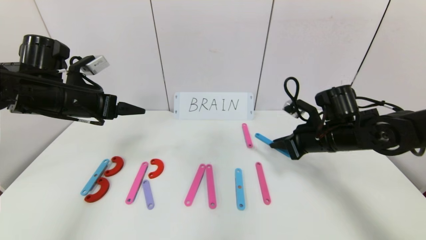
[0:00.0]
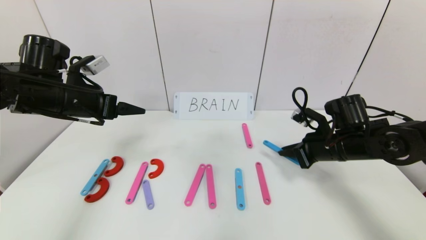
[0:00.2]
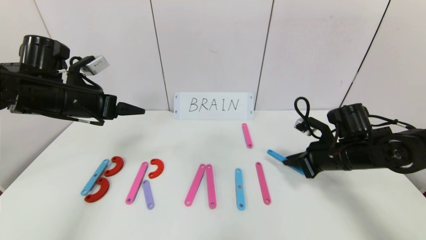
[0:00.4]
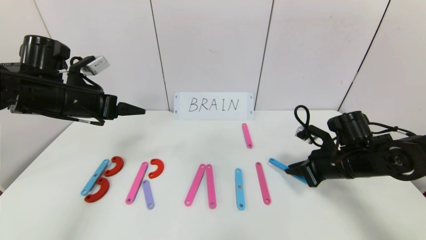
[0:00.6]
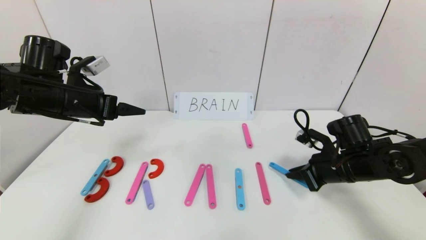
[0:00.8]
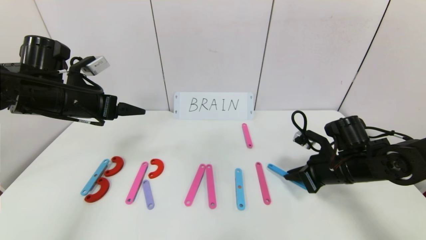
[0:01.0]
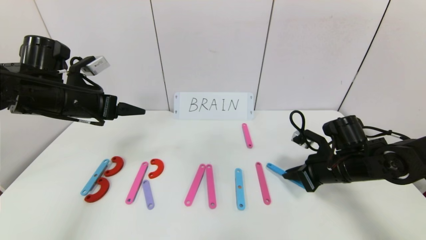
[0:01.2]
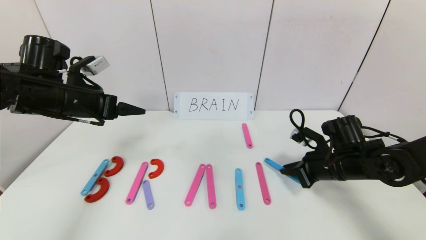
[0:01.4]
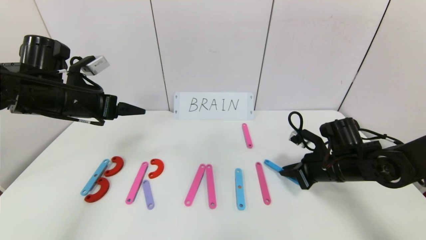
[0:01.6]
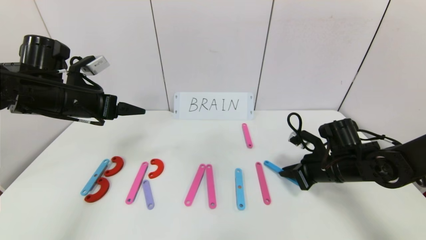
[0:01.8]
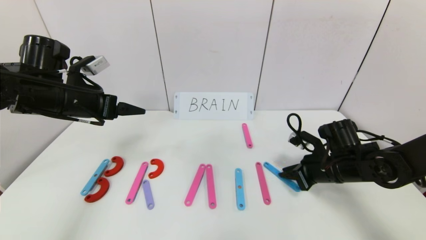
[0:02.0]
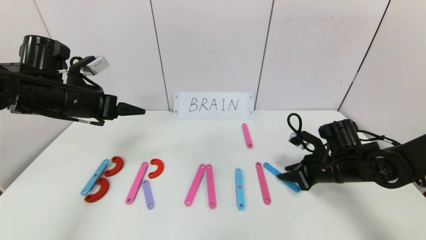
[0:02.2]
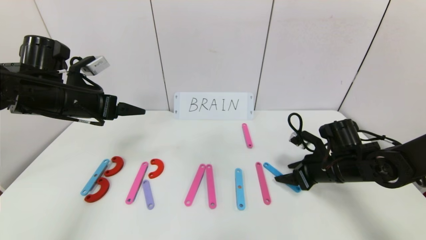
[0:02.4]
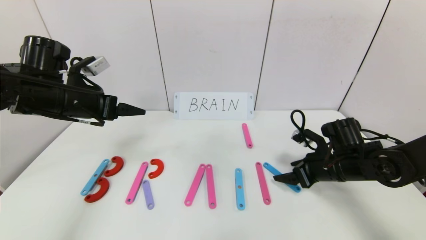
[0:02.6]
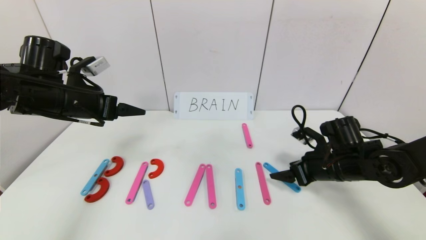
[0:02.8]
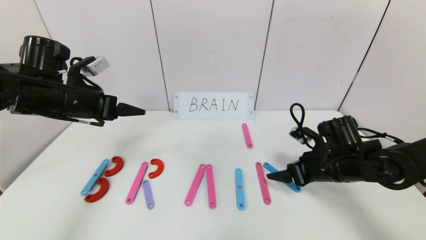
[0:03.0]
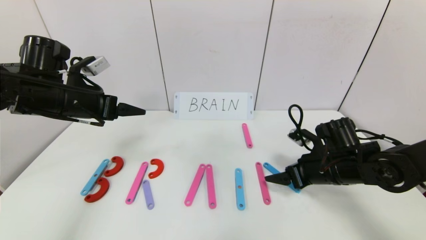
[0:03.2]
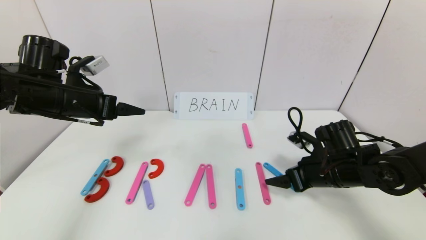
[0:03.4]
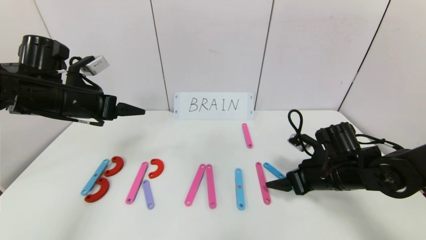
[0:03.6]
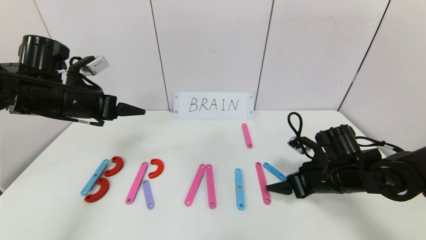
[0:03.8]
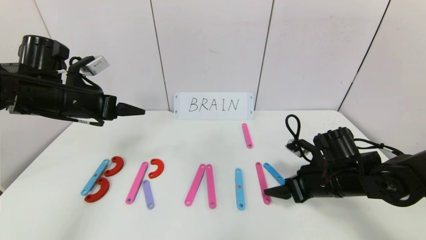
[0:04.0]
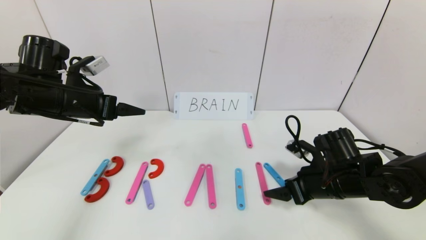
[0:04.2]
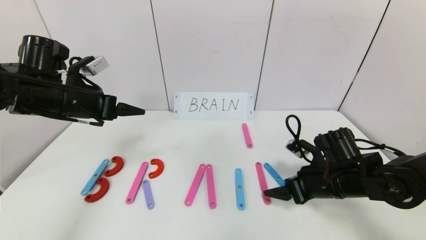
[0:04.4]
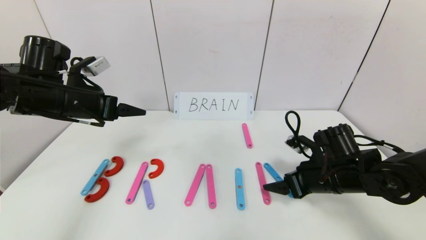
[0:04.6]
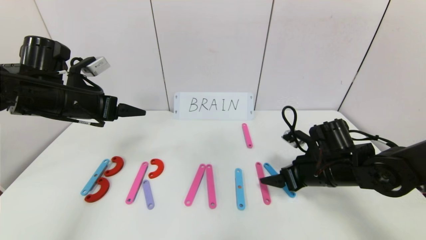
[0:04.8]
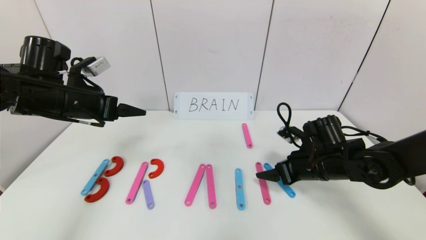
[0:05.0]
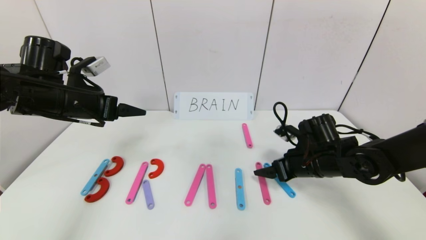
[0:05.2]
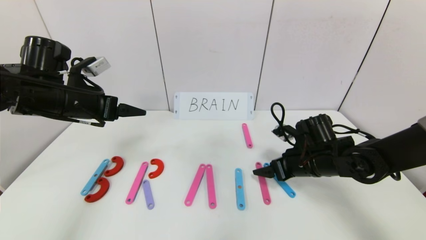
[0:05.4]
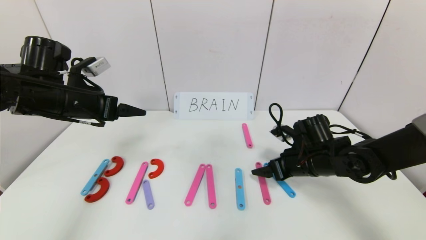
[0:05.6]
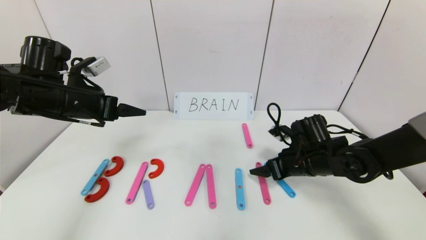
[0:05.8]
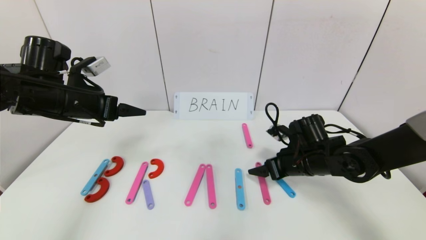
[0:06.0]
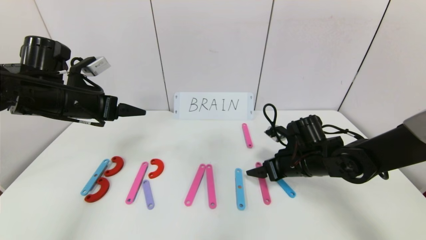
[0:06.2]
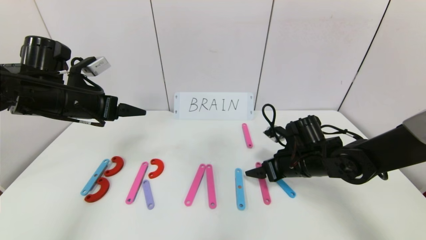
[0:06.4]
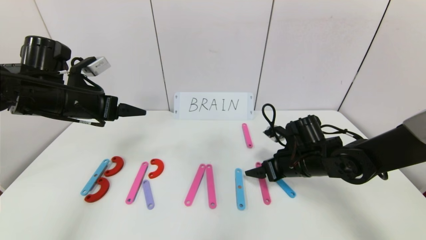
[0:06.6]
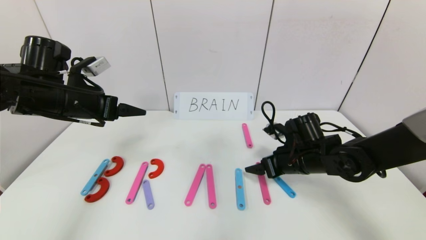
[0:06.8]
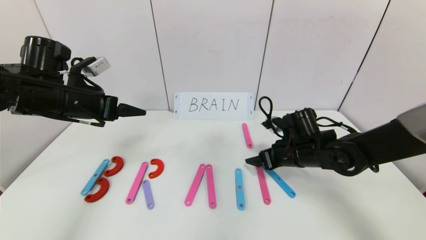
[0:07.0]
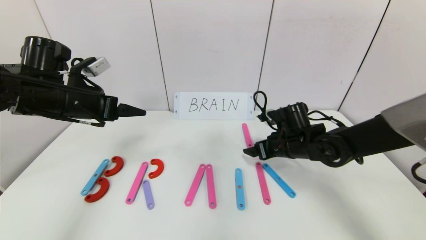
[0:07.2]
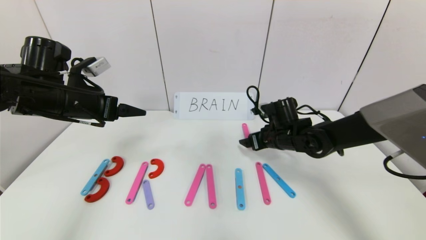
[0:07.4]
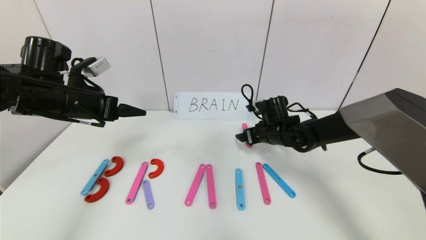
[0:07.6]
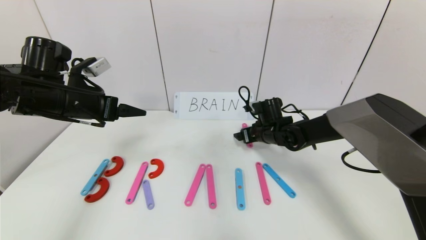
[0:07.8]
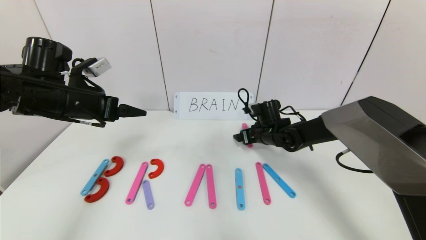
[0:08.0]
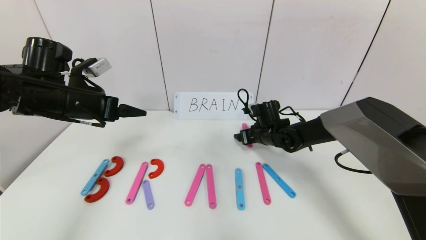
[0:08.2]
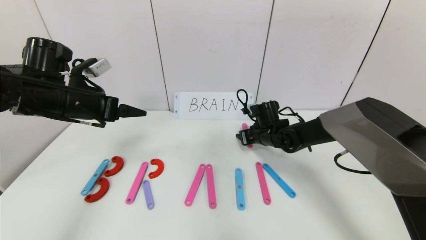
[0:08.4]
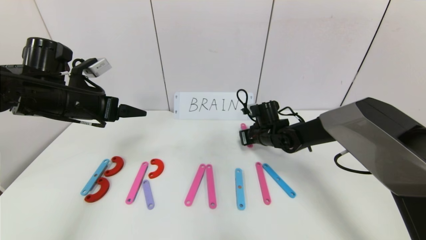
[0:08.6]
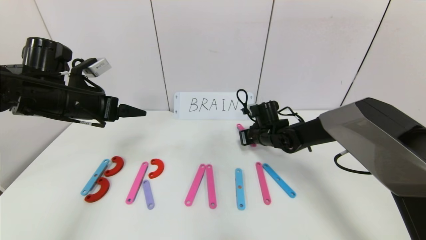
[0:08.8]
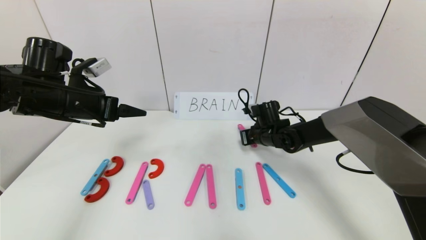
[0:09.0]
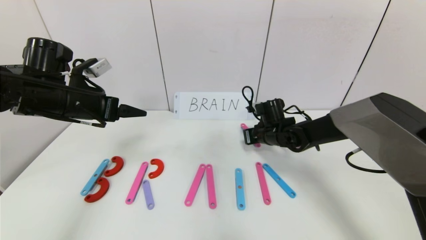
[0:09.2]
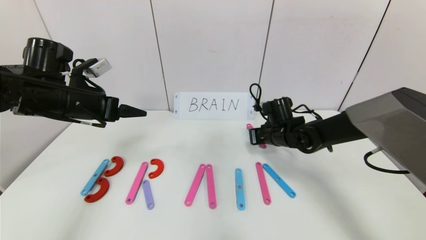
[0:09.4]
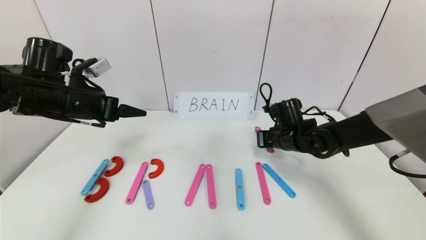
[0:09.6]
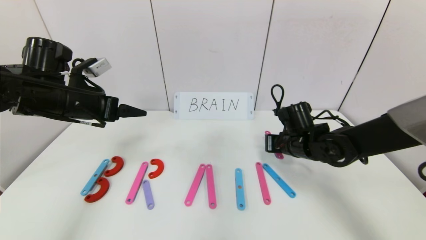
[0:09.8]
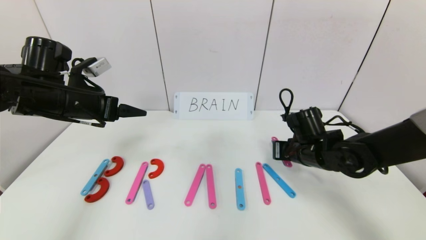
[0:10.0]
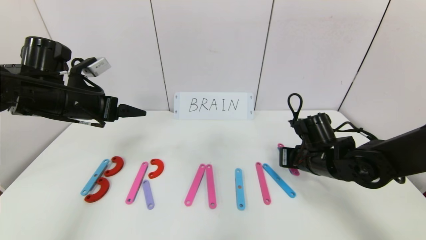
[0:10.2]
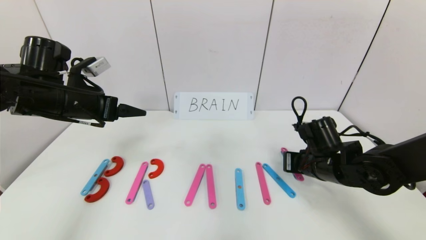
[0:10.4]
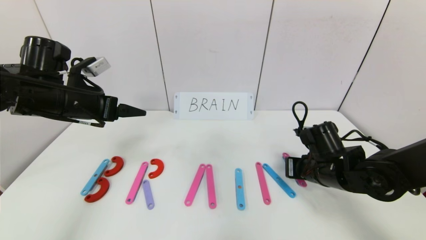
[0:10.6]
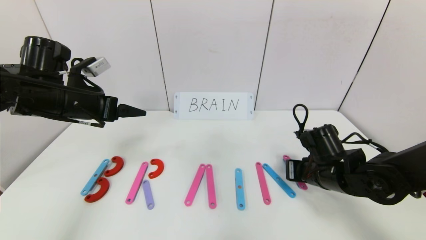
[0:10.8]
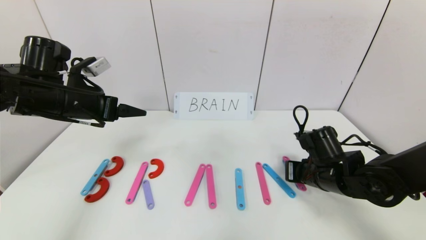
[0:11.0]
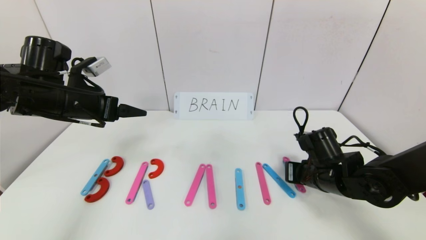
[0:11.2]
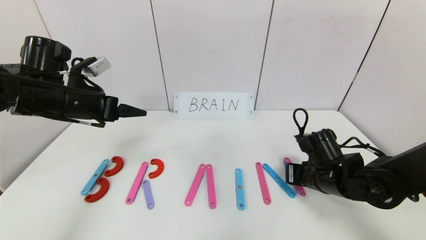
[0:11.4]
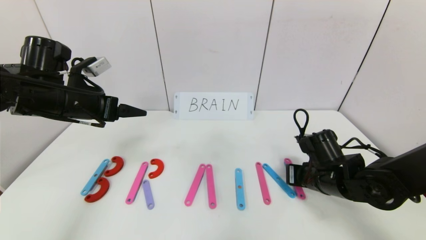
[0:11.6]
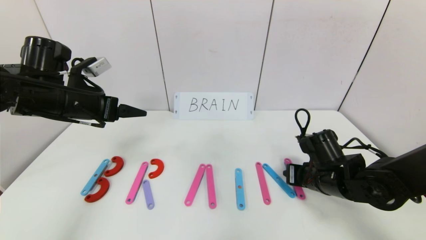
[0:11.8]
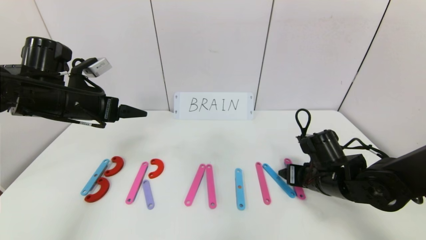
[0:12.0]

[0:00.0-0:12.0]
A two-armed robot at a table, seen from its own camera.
Task of the whole recording: rearrange the word baai as brain.
0:00.0 to 0:01.6: The right gripper travels downward by approximately 5 cm.
0:01.6 to 0:03.0: The right gripper opens up.
0:03.0 to 0:04.4: The grippers stay close to where they were, moving slightly.
0:04.4 to 0:06.0: The right gripper is displaced forward by some 5 cm.
0:06.0 to 0:07.6: The right gripper goes some 10 cm forward and to the left.
0:07.6 to 0:09.0: The right gripper closes its fingers.
0:09.0 to 0:10.4: The right gripper goes roughly 15 cm backward and to the right.
0:10.4 to 0:12.0: The right gripper opens its fingers.

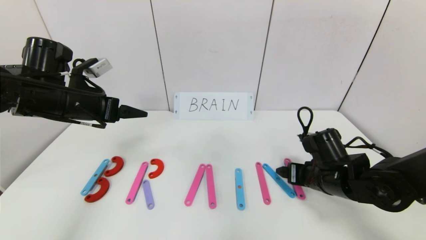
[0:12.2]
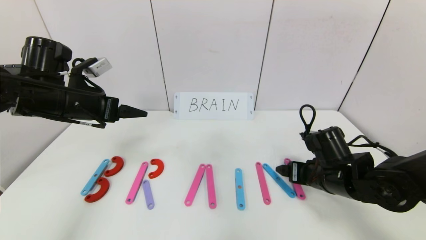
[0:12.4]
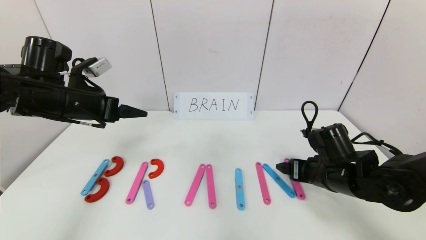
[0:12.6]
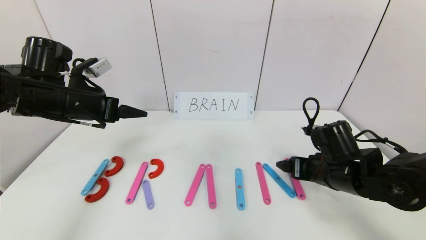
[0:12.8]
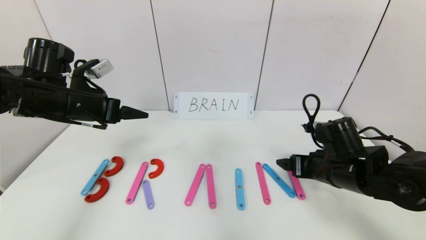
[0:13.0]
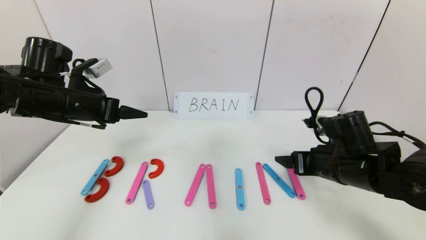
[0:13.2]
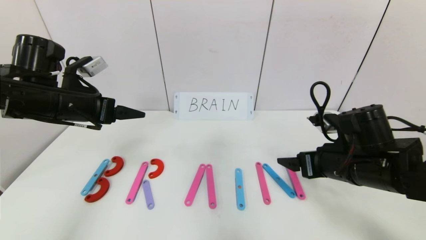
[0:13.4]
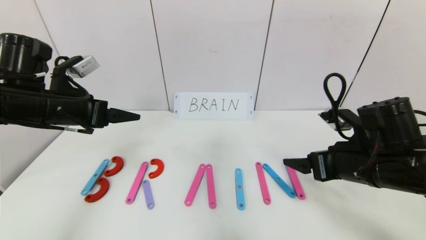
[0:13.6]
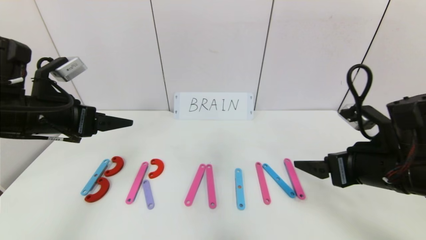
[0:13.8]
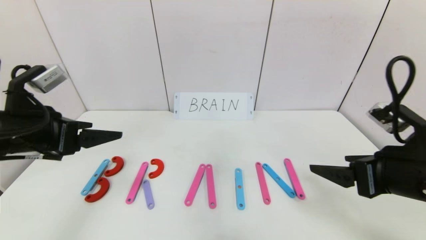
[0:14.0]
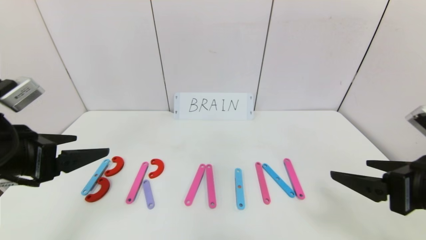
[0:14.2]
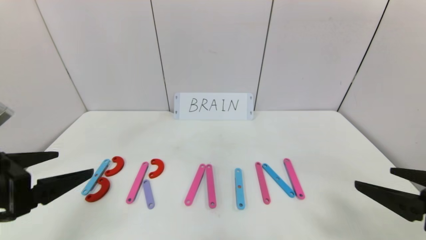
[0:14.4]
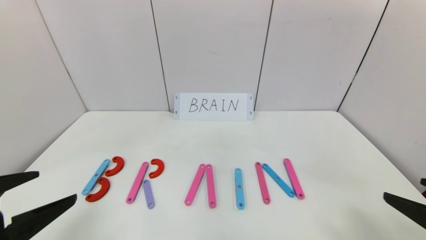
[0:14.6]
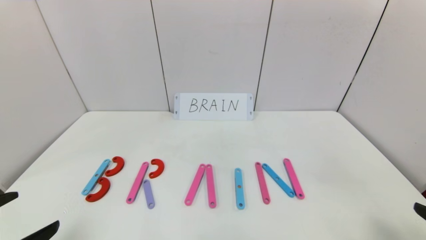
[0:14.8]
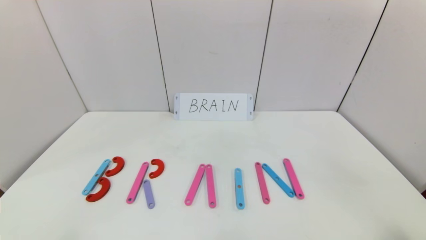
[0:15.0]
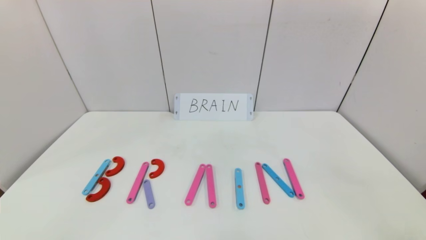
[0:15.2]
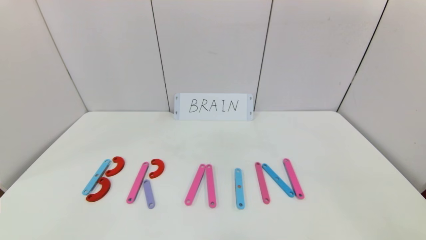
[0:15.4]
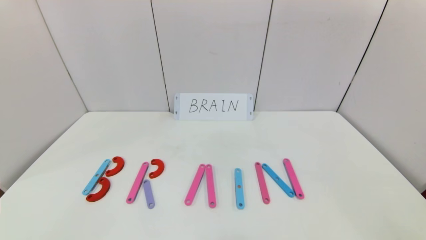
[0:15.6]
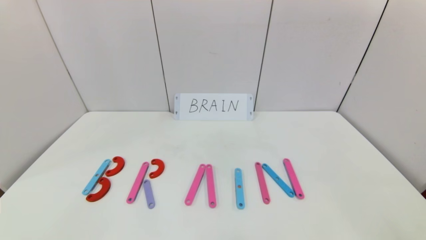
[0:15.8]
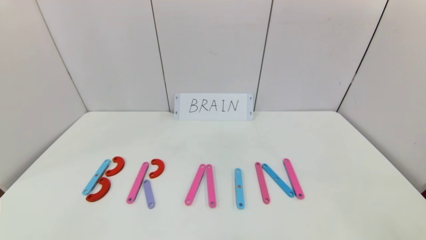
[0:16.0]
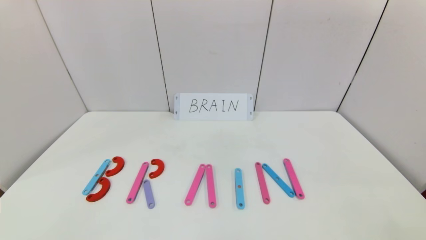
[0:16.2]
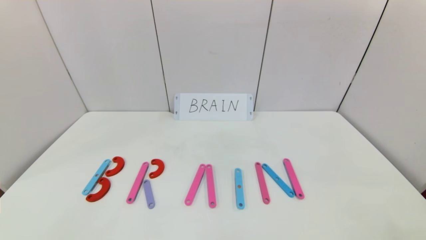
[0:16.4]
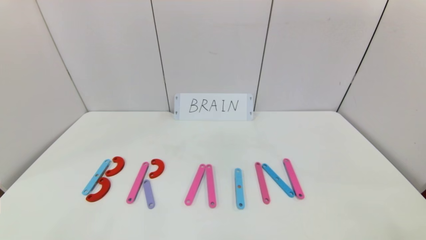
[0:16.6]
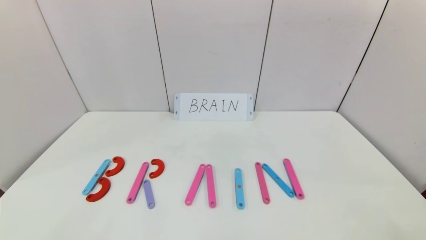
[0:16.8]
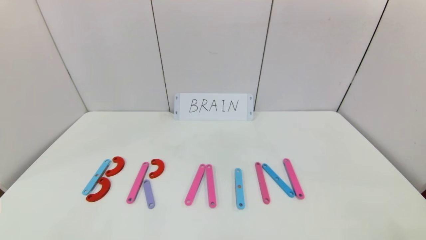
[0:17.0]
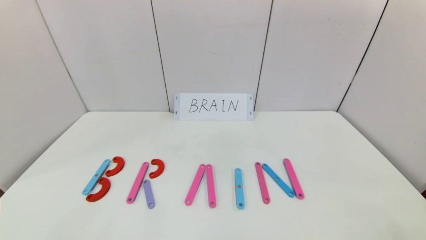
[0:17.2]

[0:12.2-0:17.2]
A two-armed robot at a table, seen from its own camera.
Task of the whole recording: rearrange the word baai as brain.
0:12.2 to 0:13.8: The right gripper is displaced upward and backward by roughly 15 cm. The left gripper is displaced backward by some 5 cm.
0:13.8 to 0:15.6: Both grippers move backward, approximately 25 cm.
